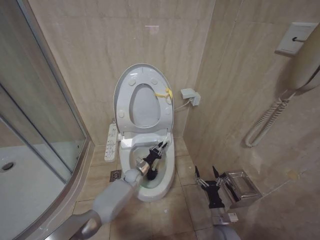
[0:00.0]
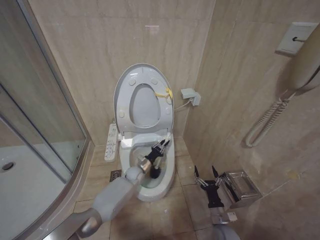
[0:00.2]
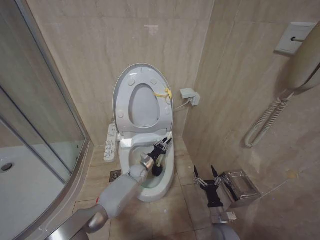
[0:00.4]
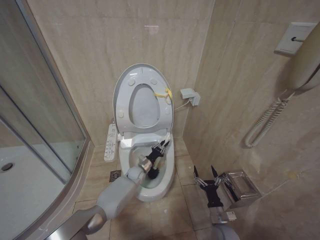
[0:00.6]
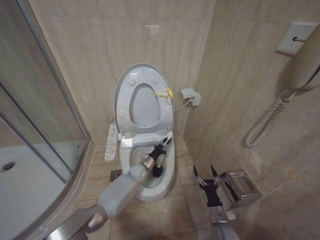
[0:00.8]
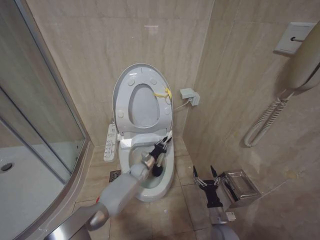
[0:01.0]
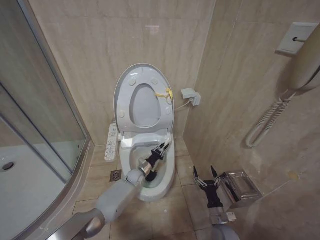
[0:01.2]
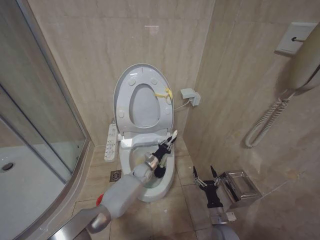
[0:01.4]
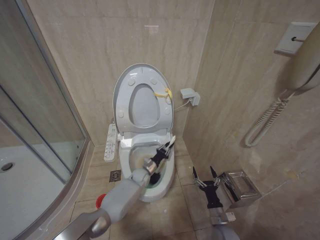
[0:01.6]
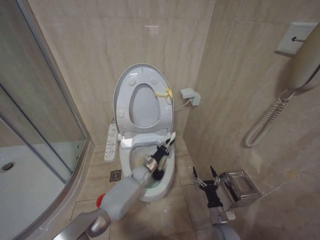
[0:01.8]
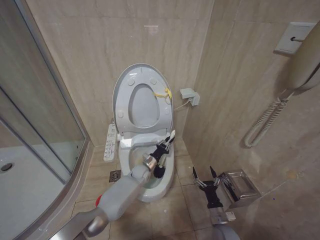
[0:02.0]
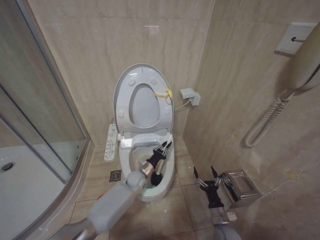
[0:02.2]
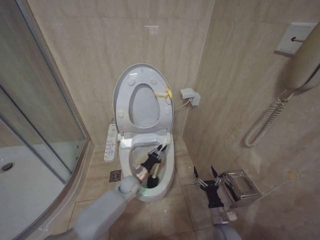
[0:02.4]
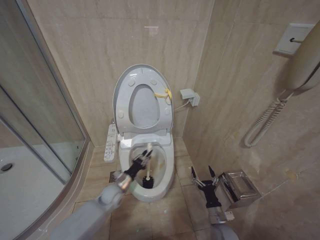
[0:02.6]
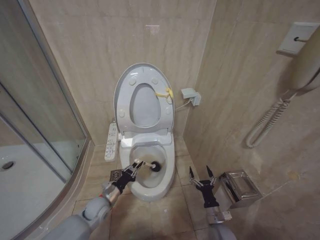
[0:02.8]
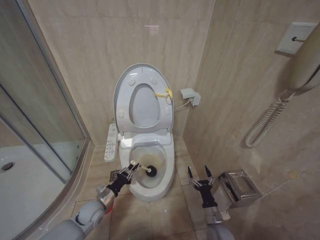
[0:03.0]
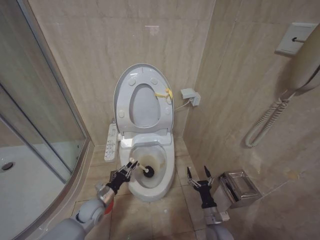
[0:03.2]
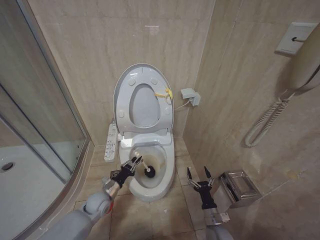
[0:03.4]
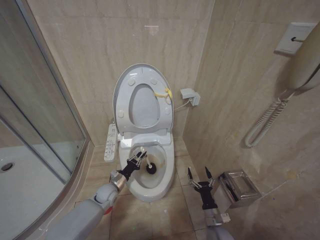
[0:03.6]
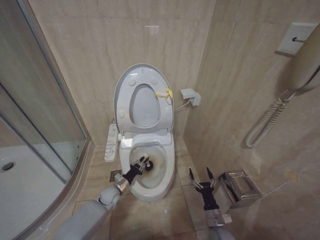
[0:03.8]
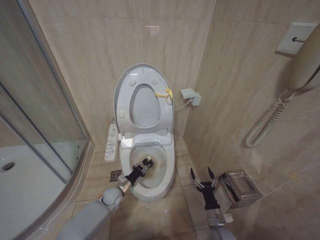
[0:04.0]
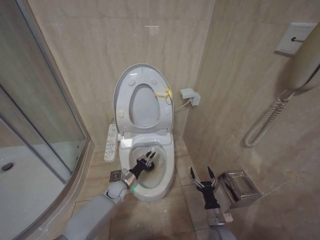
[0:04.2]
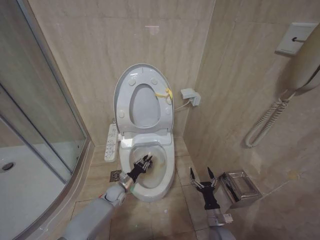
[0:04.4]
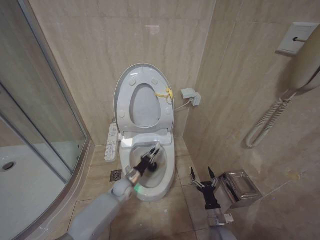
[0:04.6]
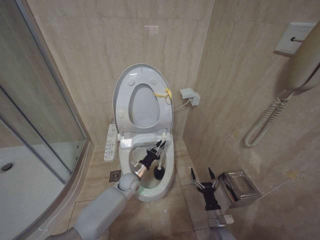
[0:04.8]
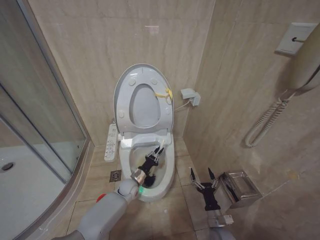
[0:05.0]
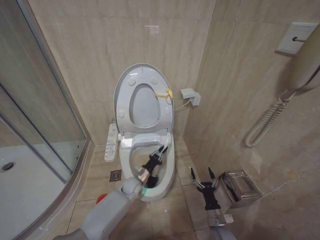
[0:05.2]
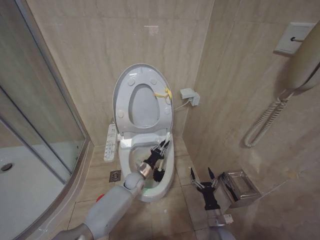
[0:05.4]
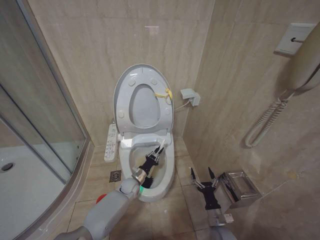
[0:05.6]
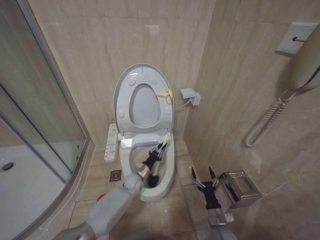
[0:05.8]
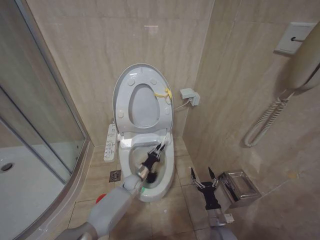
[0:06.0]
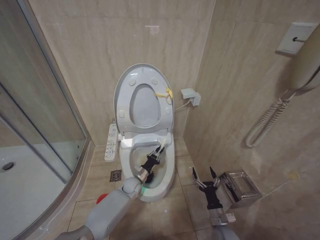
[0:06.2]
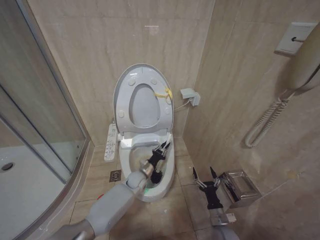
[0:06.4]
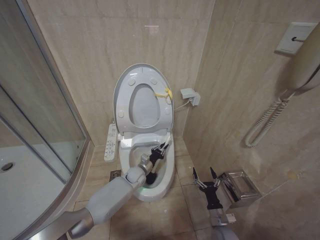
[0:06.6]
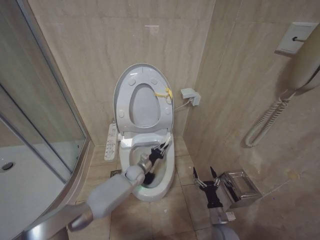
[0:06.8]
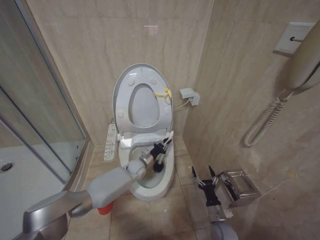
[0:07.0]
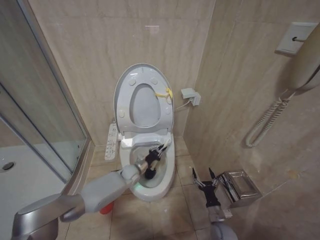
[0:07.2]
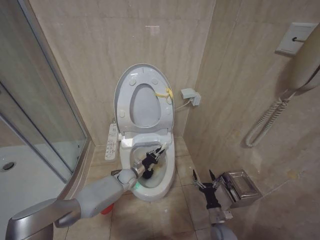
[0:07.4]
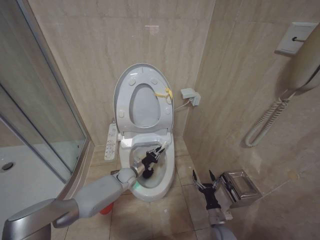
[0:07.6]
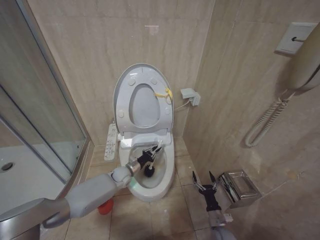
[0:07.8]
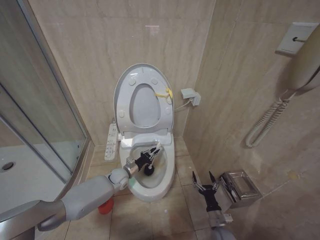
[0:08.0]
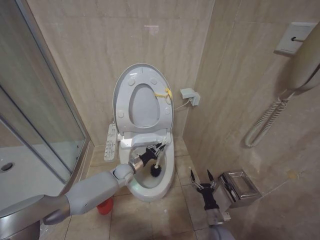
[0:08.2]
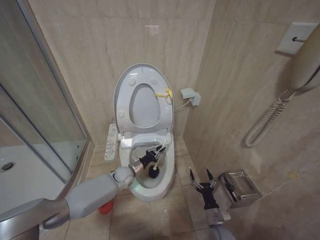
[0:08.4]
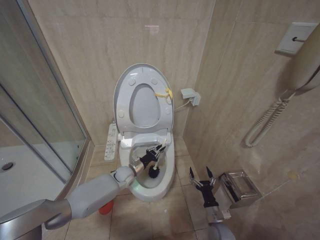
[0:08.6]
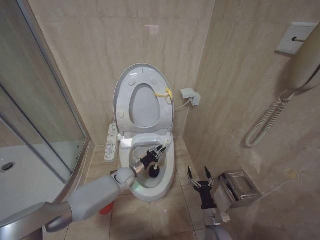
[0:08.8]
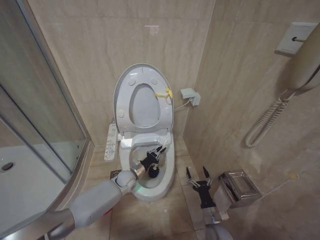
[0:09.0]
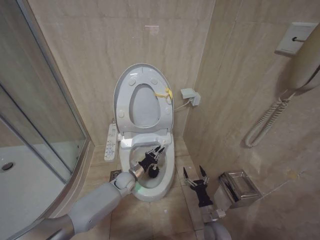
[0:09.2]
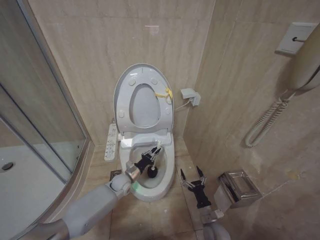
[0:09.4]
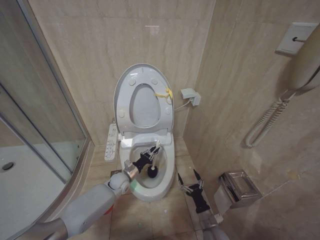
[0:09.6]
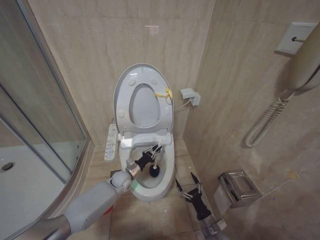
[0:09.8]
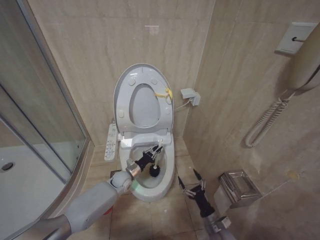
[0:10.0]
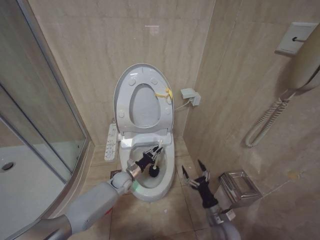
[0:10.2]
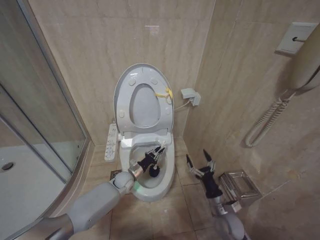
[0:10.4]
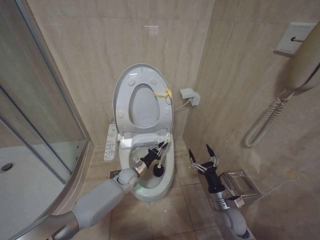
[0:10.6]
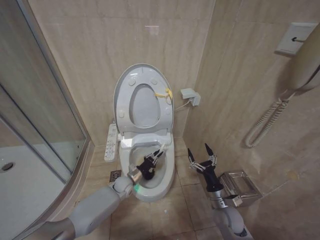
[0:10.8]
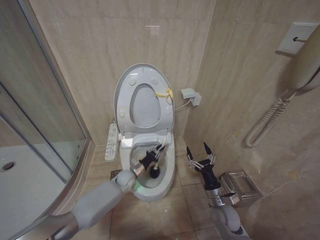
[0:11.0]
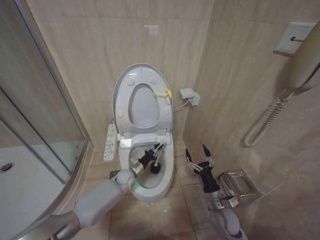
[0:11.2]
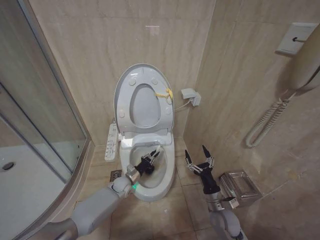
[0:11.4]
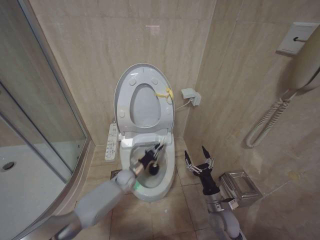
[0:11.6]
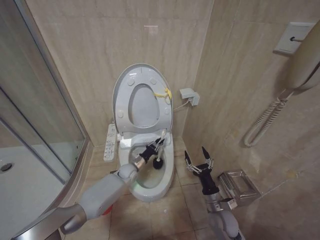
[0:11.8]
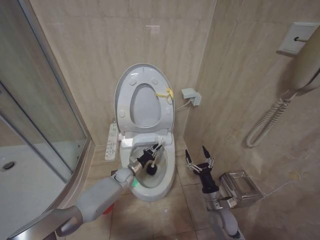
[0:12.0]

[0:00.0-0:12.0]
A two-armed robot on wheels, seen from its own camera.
Task of the whole recording: Open the toilet lid, clean the toilet bowl with a toilet brush, close the toilet lid, and flush.
0:00.0 to 0:01.6: The grippers make only small movements.
0:01.6 to 0:03.0: The left gripper moves to the left and backward, roughly 25 cm.
0:03.0 to 0:04.4: The left gripper travels forward and to the right by some 10 cm.
0:04.4 to 0:06.0: The left gripper heads to the right, covering about 10 cm.
0:06.0 to 0:07.6: The left gripper goes upward and returns, some 5 cm each way.
0:07.6 to 0:09.0: The grippers move only a little.
0:09.0 to 0:10.4: The right gripper moves upward, roughly 10 cm.
0:10.4 to 0:12.0: The grippers move only a little.

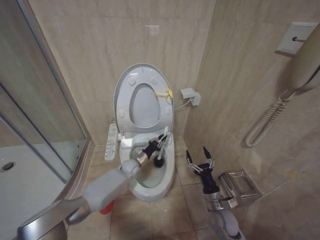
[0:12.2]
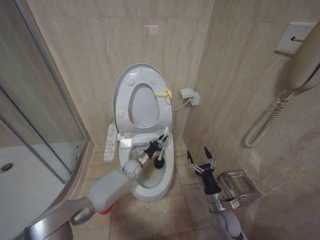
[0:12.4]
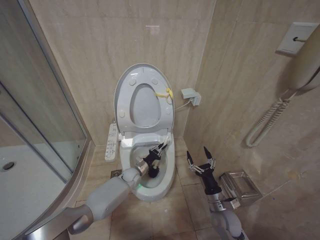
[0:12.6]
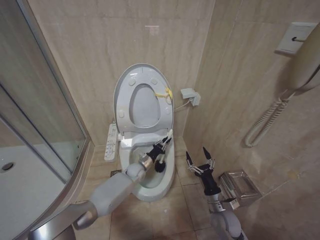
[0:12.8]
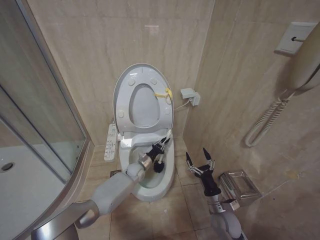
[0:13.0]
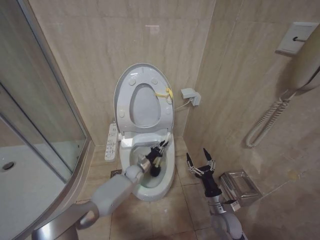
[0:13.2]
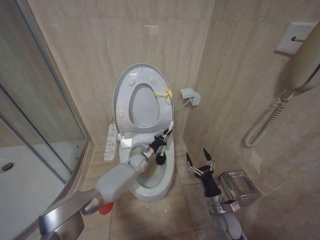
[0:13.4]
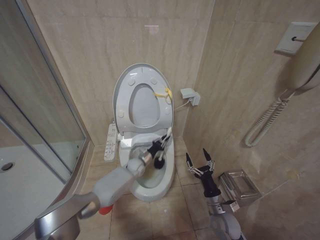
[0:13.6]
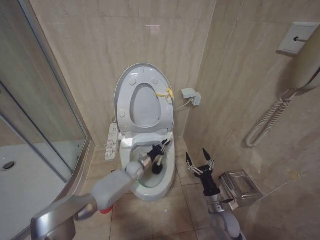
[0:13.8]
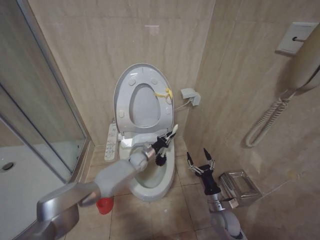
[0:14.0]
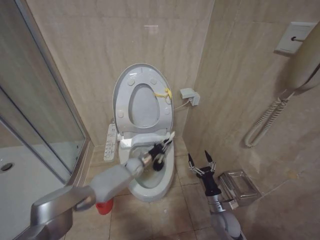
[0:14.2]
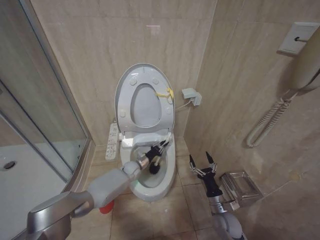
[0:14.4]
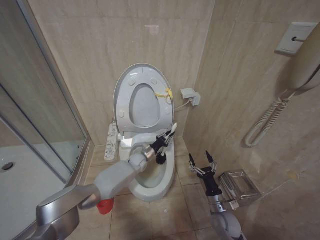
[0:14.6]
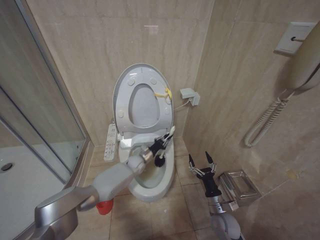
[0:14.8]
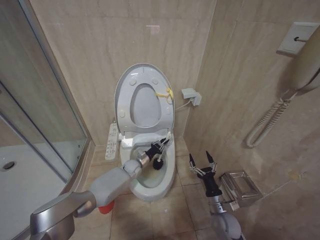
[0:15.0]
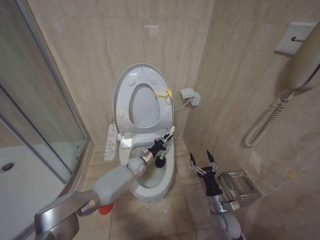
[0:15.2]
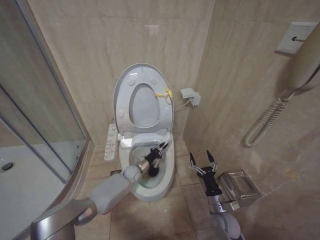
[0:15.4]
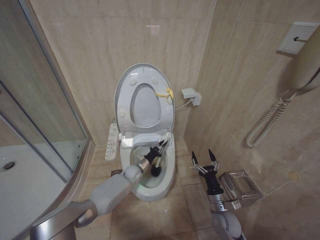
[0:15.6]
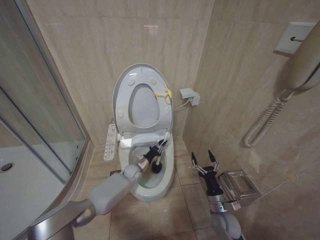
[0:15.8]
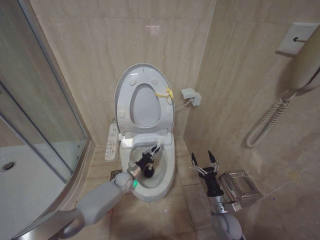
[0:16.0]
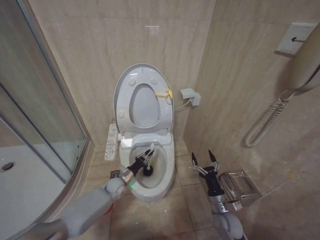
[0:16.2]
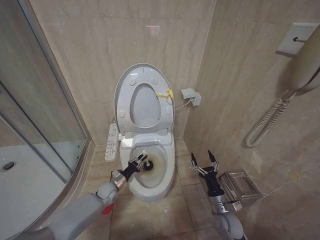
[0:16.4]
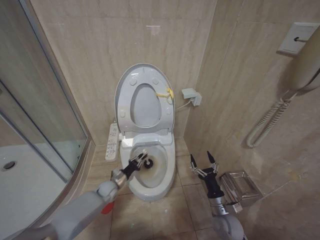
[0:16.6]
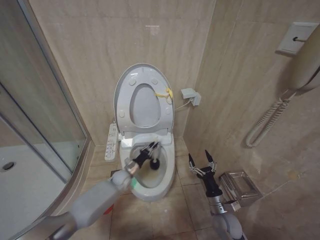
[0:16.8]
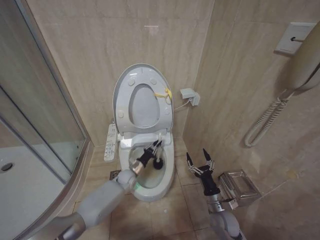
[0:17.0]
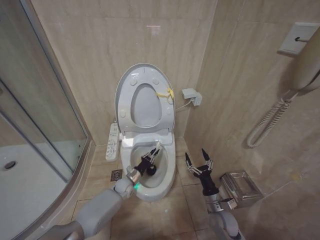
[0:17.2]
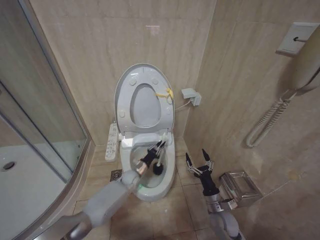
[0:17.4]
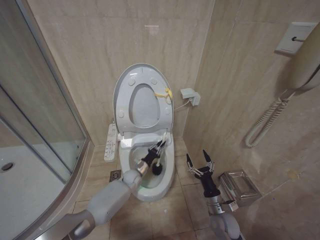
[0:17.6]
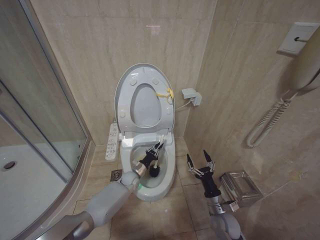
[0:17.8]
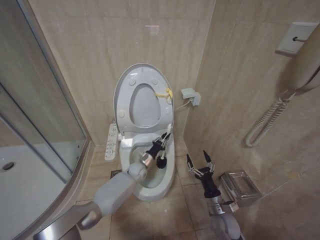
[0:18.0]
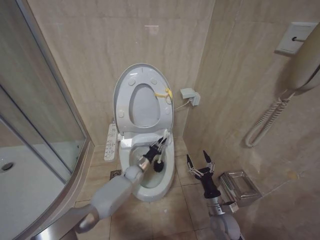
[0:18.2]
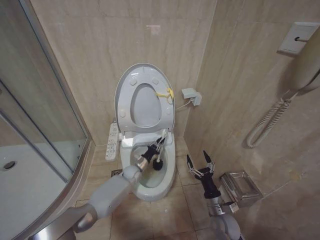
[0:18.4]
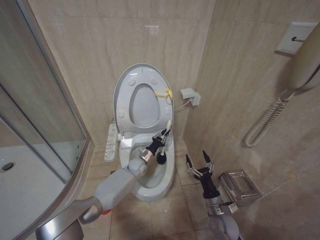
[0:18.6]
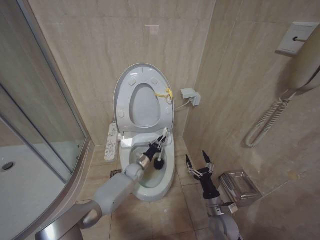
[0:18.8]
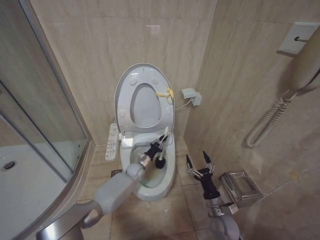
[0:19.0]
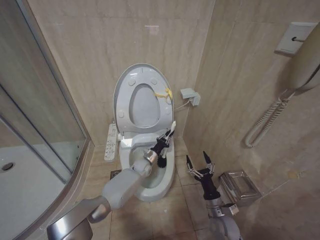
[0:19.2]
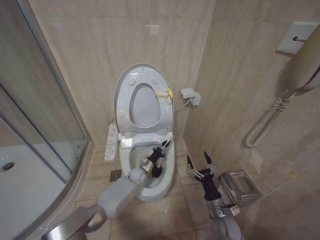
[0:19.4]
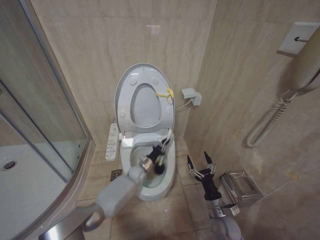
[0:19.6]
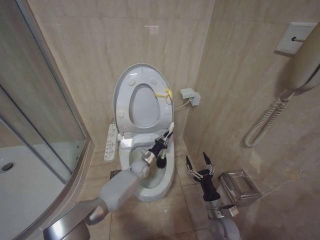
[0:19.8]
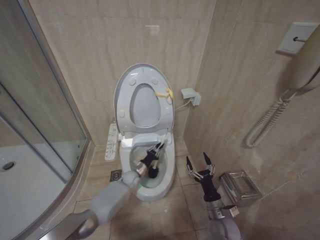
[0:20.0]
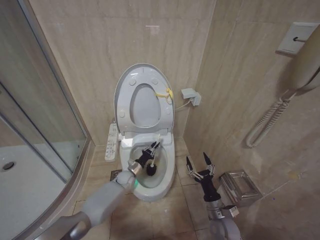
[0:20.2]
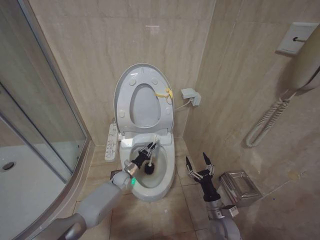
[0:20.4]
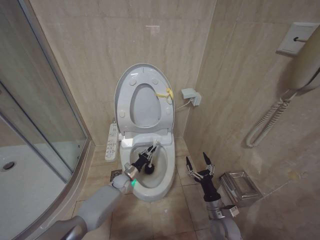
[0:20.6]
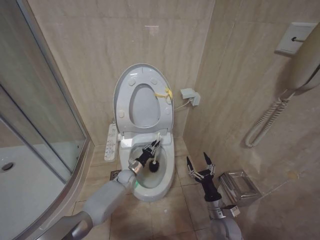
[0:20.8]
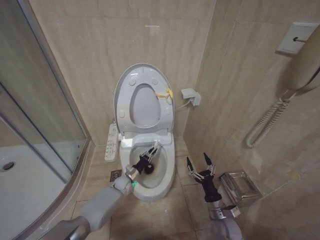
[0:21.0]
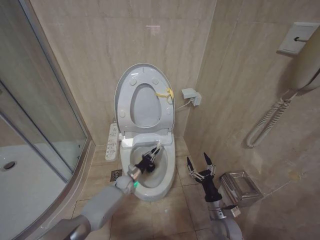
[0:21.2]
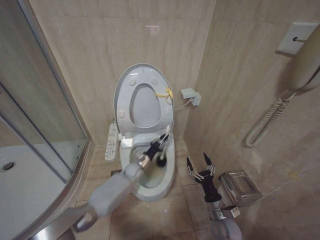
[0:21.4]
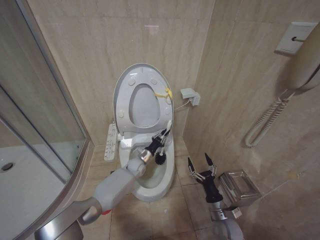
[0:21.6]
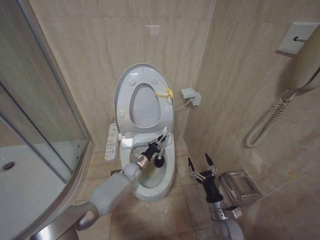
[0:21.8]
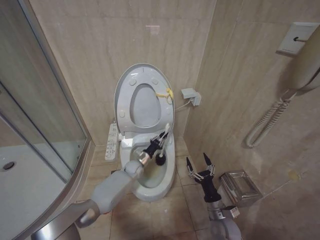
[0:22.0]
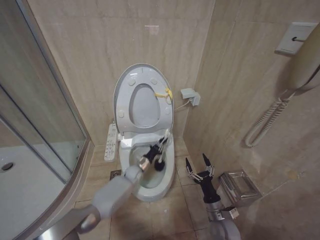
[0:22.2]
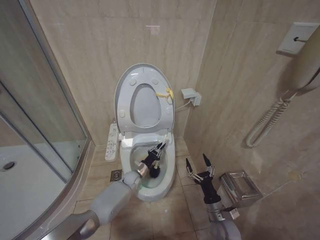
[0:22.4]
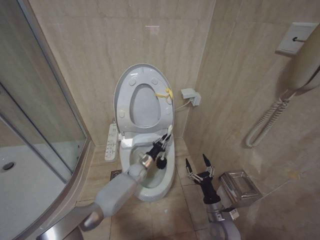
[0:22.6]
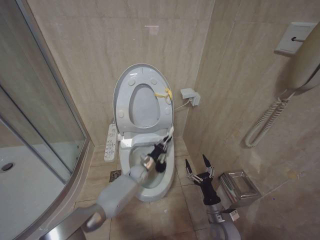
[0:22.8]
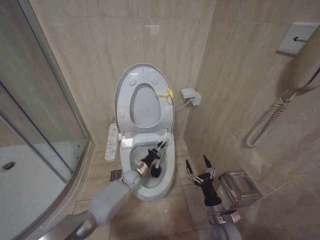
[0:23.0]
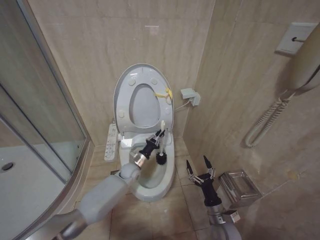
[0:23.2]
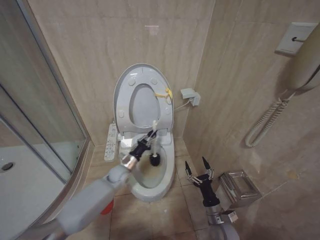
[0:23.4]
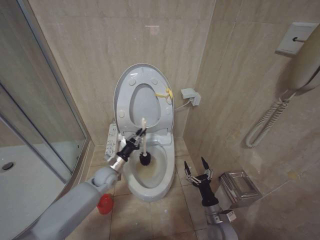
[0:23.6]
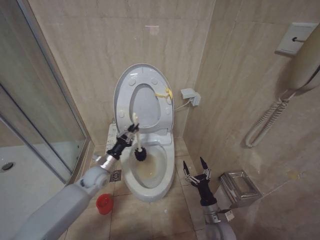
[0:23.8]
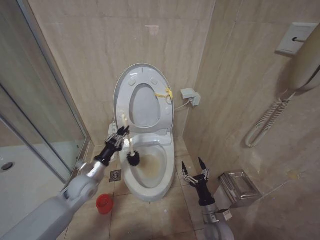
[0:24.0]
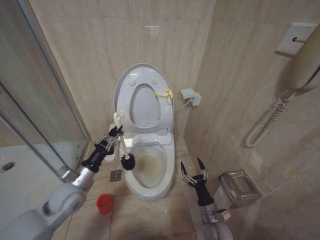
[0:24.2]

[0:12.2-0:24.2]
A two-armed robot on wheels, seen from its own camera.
Task of the whole recording: Open the toilet lid, clean the toilet bowl with a toilet brush, close the toilet lid, and flush.
0:12.2 to 0:13.8: The grippers stay close to where they were, moving slightly.
0:15.2 to 0:16.6: The left gripper is displaced to the left, backward and downward by approximately 20 cm.
0:16.6 to 0:18.2: The left gripper moves to the right and forward, some 15 cm.
0:18.2 to 0:19.8: The grippers stay close to where they were, moving slightly.
0:19.8 to 0:21.2: The left gripper travels to the left and downward by approximately 10 cm.
0:21.2 to 0:22.6: The left gripper moves up and down over roughly 10 cm, changing direction 2 times.
0:22.6 to 0:24.2: The left gripper is displaced to the left, backward and upward by some 30 cm.
